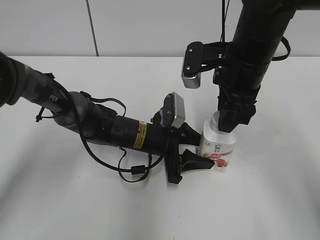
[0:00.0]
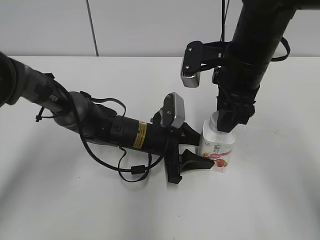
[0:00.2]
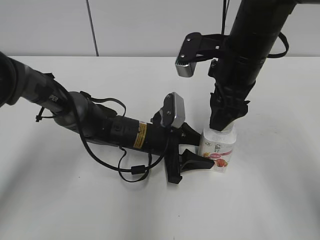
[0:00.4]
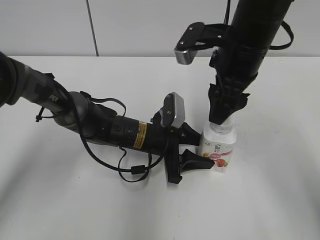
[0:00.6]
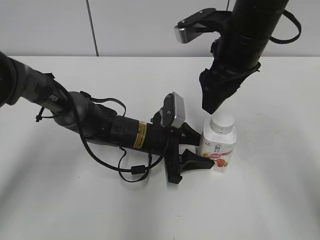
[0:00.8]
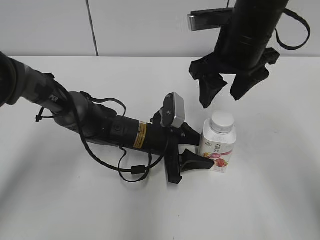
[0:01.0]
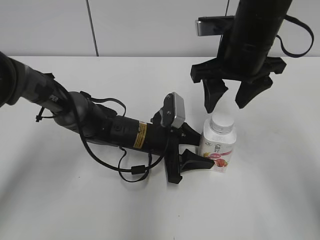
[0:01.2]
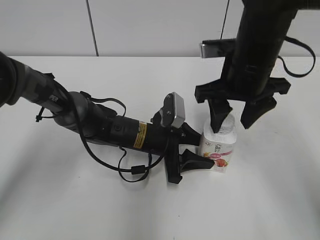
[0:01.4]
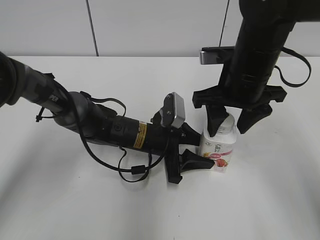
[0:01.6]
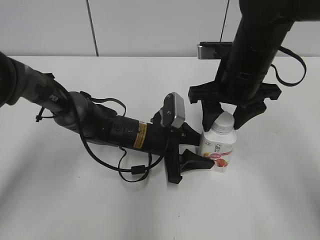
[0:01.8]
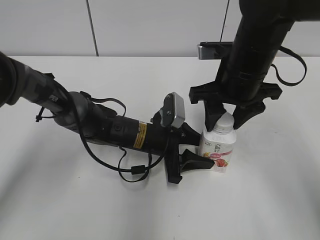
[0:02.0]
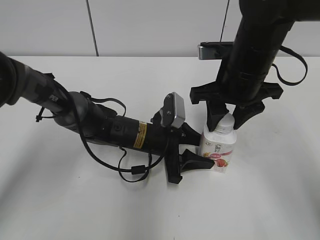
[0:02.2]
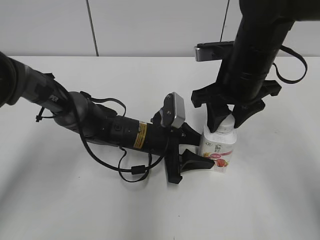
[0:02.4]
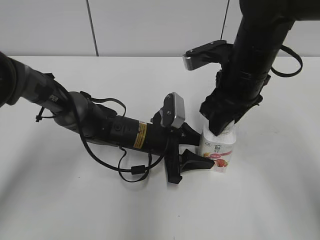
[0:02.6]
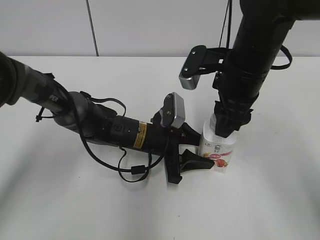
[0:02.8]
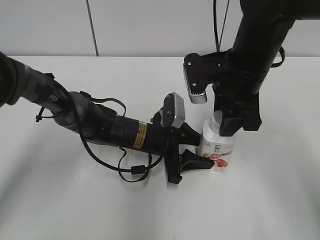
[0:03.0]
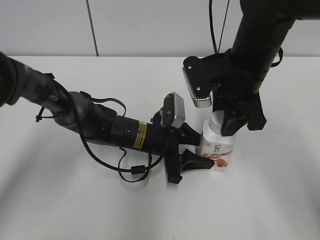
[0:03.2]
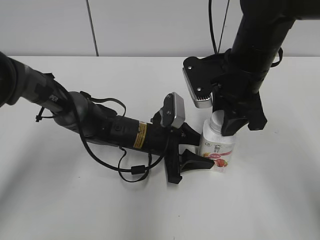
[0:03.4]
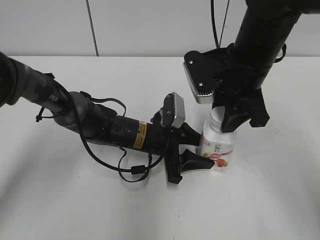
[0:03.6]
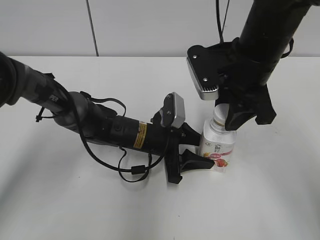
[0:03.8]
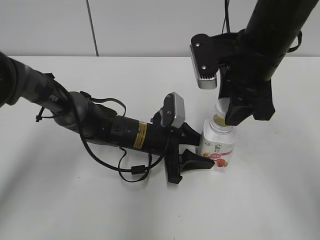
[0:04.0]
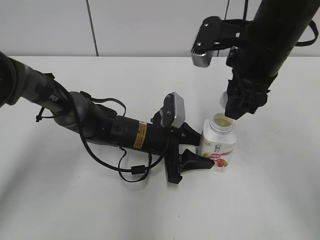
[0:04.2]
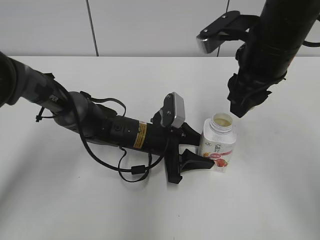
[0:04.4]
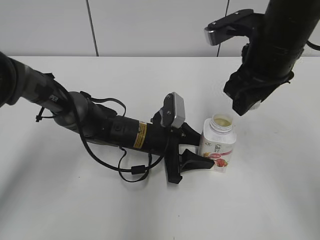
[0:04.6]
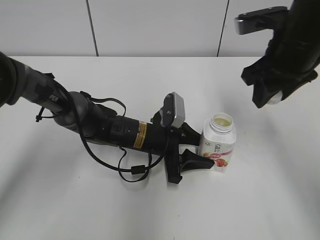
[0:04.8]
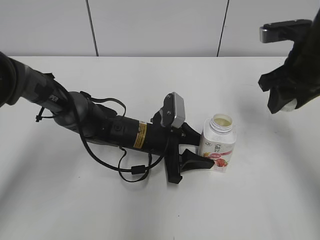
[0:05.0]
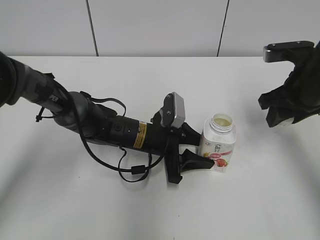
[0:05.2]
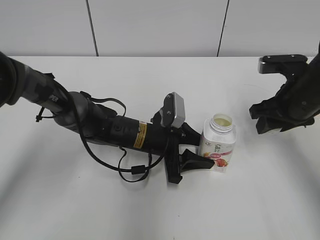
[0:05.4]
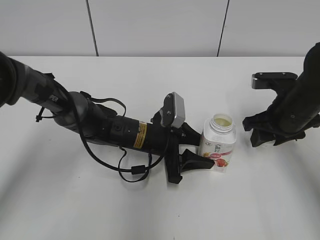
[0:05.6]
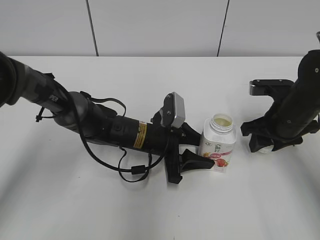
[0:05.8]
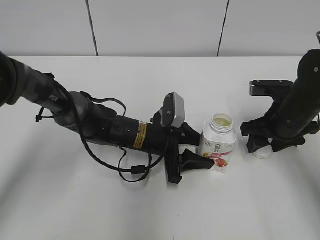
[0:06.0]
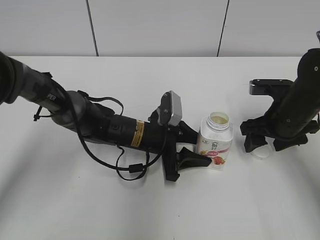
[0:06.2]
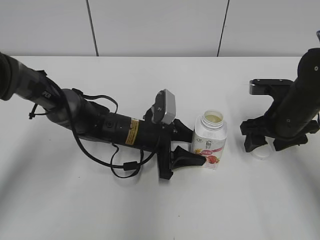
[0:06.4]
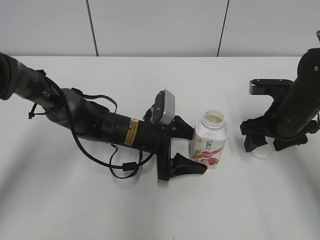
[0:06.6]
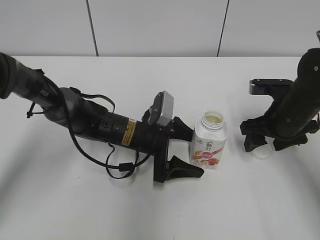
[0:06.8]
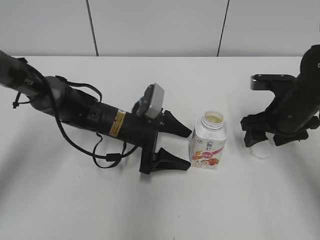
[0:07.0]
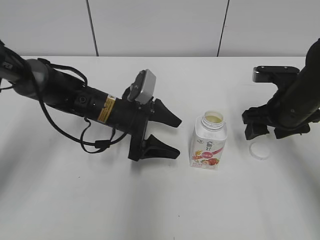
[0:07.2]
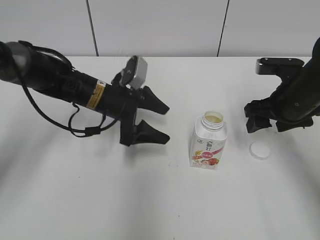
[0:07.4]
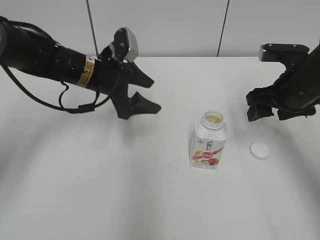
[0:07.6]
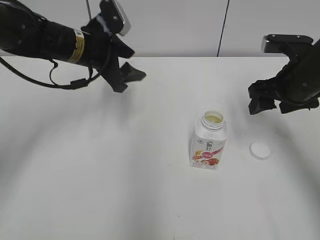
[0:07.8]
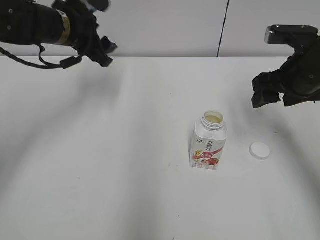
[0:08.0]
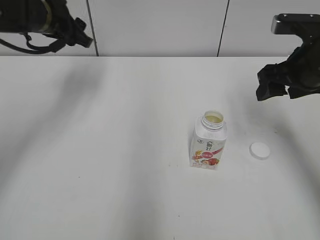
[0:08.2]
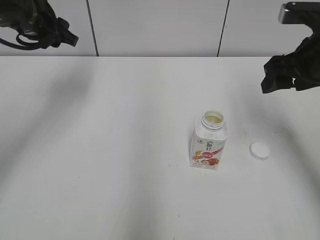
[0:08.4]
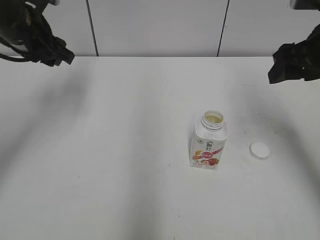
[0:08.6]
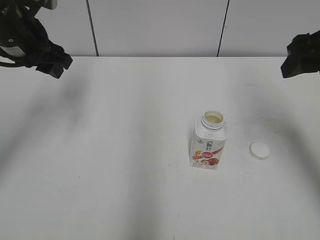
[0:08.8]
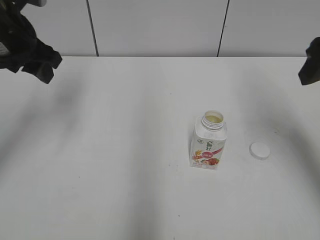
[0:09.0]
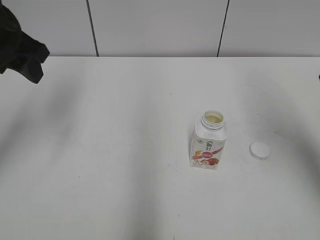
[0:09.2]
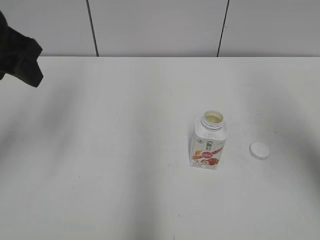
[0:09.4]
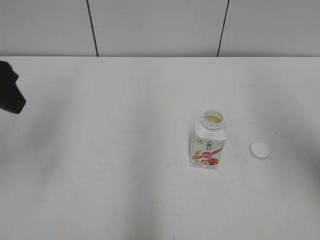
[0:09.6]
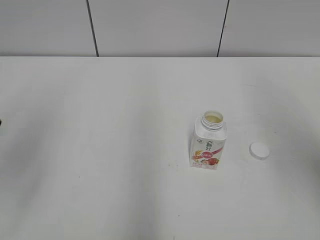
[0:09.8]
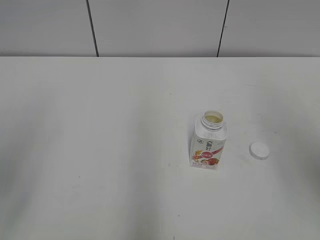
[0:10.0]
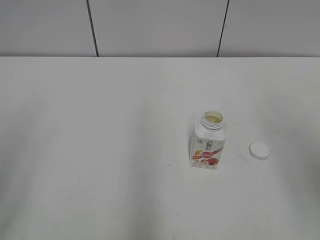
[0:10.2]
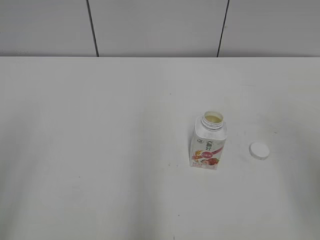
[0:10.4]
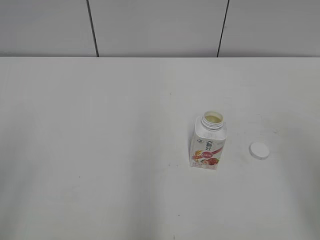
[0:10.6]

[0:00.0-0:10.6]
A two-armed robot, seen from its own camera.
Step, 0:00.0 to 0:03.8: Twist the bottle cap with the right hand.
Step, 0:04.0 to 0:06.0: Place the bottle cap on the right.
0:00.0 to 0:01.6: The right gripper opens up.
0:01.6 to 0:03.0: The right gripper closes up.
0:03.0 to 0:04.6: The right gripper moves some 5 cm.
0:04.6 to 0:06.0: The right gripper shifts some 15 cm downward and to the right, and opens up.
0:06.0 to 0:07.6: The right gripper travels upward by approximately 5 cm, and opens; the left gripper heads upward, to the left and forward, covering approximately 15 cm, and opens its fingers.
0:07.6 to 0:09.0: The left gripper is displaced upward and to the left by some 15 cm, and closes. The right gripper travels upward and backward by some 15 cm.
0:09.0 to 0:10.6: The two grippers go some 25 cm backward.
